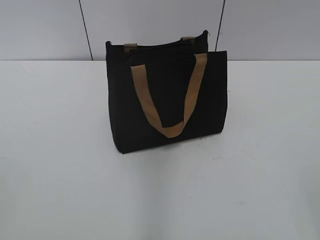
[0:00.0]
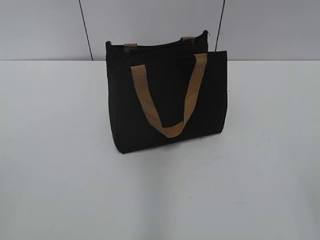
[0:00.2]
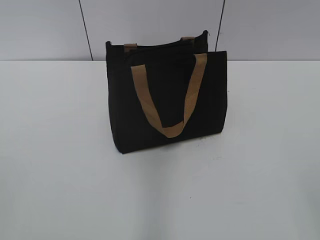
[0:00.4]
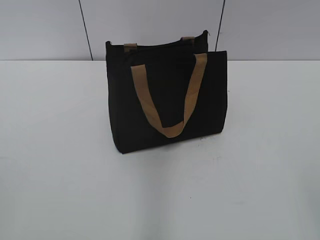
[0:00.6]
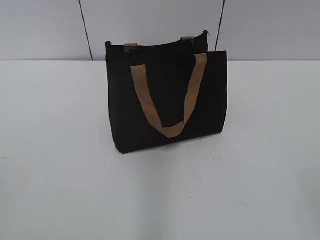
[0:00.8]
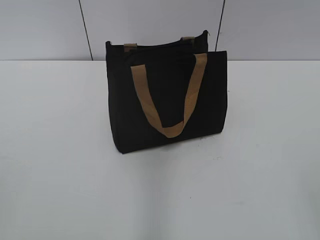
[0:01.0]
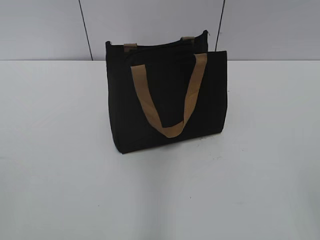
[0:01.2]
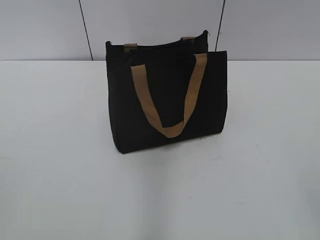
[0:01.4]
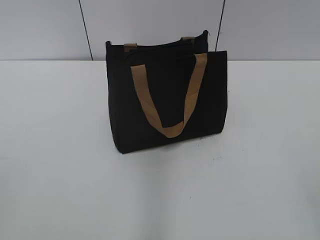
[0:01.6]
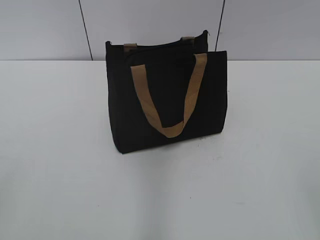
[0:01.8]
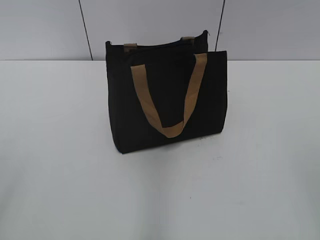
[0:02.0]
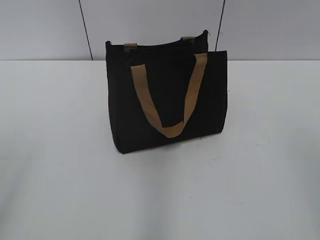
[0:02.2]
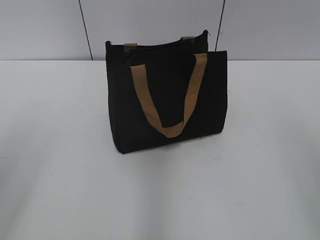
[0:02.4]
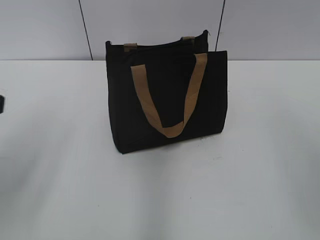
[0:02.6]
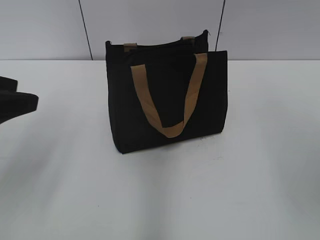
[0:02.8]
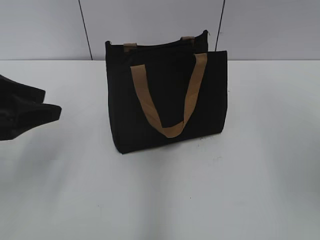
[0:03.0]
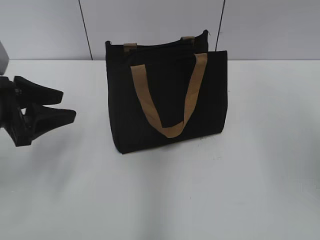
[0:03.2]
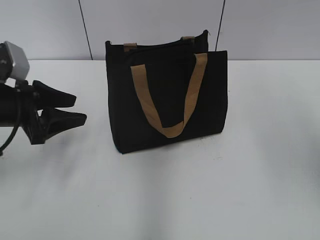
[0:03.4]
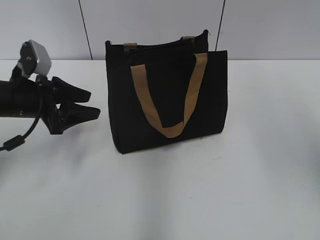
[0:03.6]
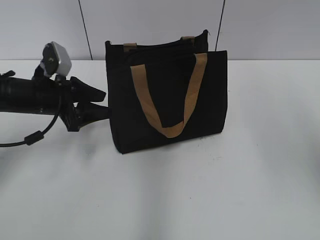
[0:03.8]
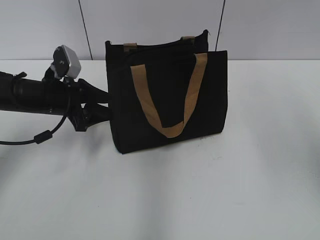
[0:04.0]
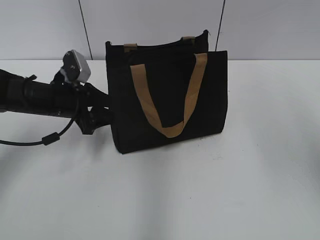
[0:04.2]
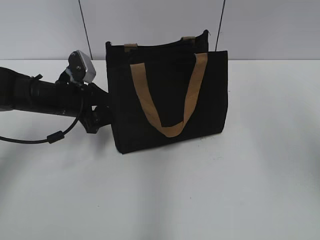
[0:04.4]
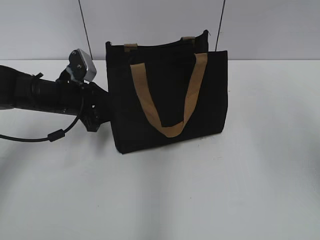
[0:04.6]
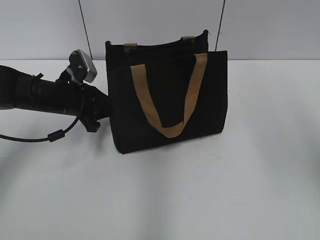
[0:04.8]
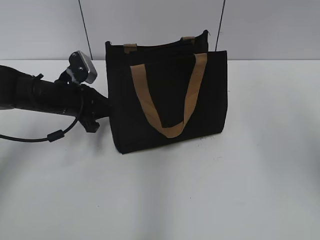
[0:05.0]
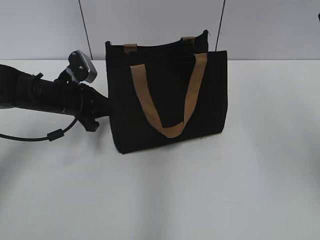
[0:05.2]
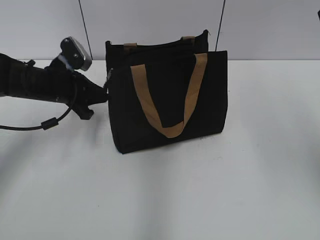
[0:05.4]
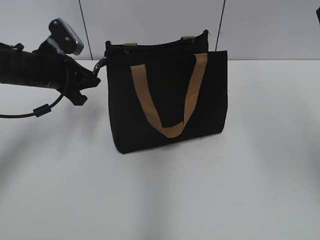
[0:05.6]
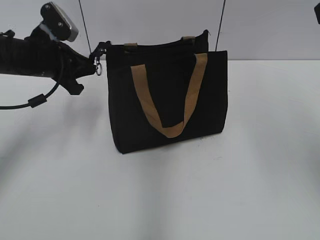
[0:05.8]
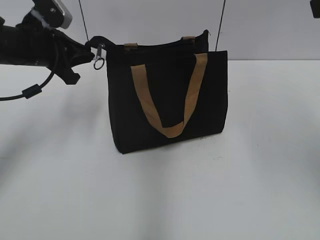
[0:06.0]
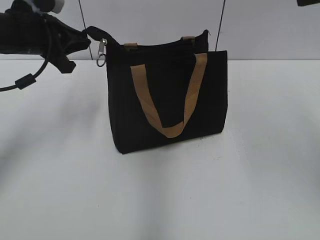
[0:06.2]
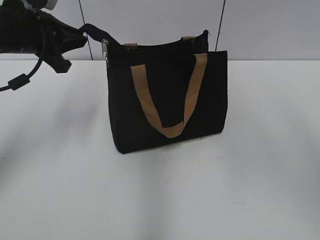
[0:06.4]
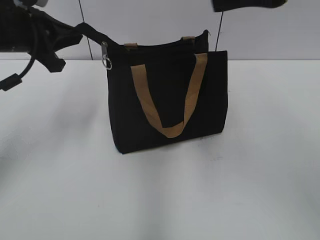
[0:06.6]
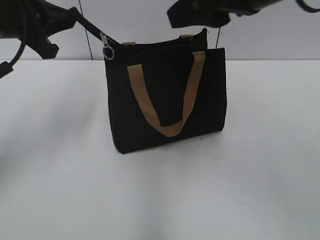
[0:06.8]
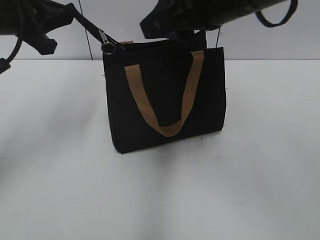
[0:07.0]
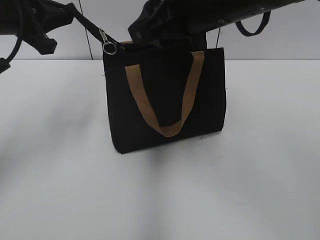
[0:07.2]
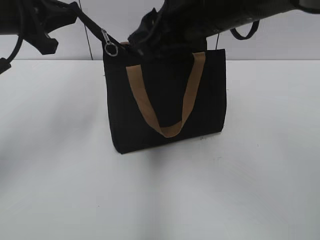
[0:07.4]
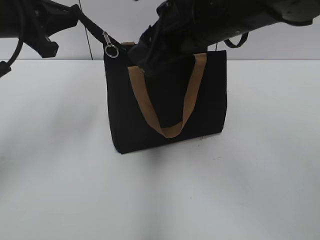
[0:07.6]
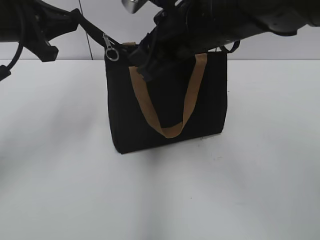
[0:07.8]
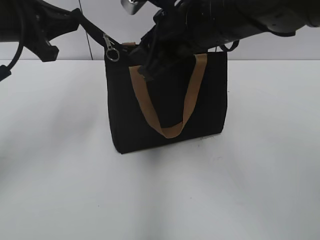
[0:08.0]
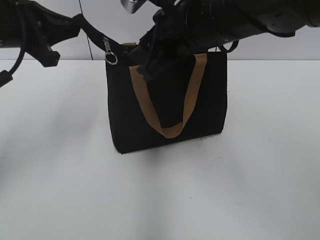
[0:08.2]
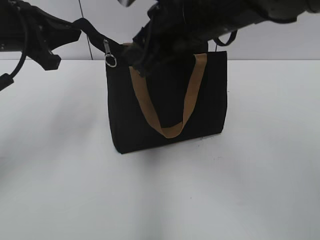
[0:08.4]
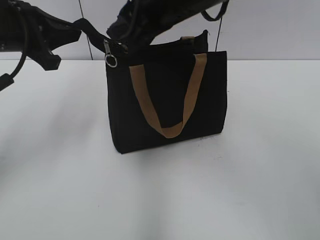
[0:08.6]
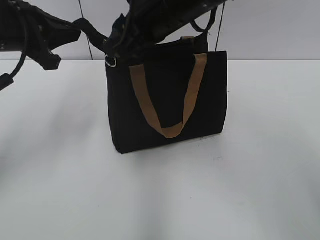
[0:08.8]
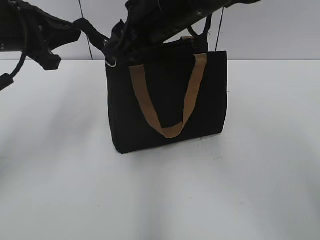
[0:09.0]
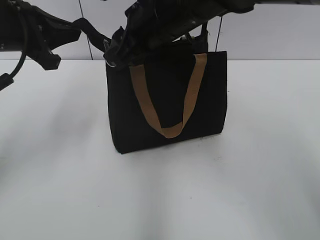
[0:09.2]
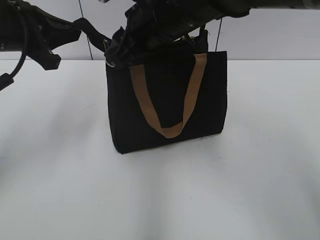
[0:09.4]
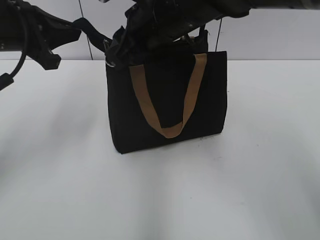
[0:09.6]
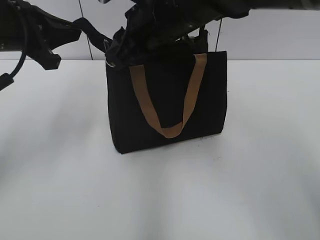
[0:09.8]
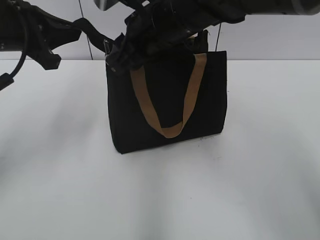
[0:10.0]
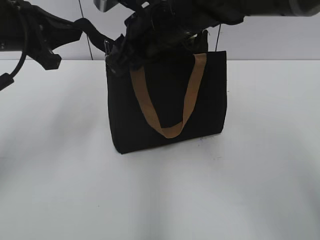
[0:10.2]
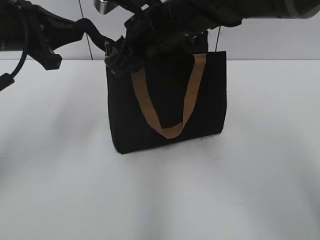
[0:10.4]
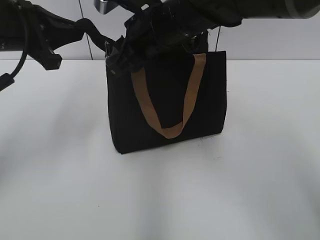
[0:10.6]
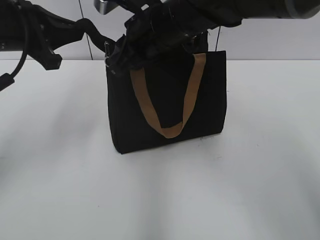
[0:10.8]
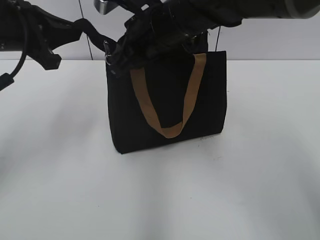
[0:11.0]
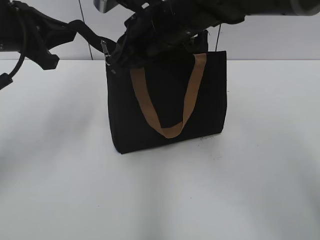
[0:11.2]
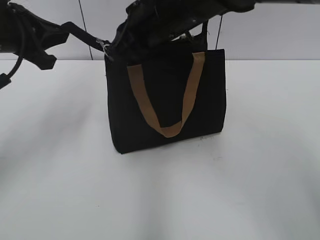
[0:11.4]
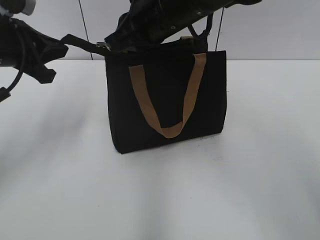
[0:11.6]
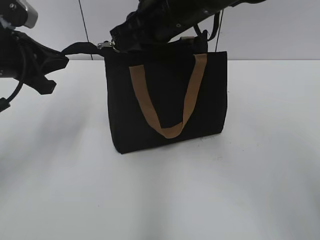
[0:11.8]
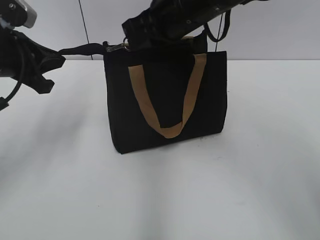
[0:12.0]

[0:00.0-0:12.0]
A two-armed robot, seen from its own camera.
1.6 to 3.0 s: The left gripper shifts approximately 20 cm forward, and opens its fingers.
3.0 to 4.4 s: The left gripper travels forward, downward and to the right by about 20 cm. The right gripper is displaced forward by some 5 cm.
4.4 to 6.0 s: The left gripper goes some 10 cm upward, and closes up.
6.0 to 7.6 s: The left gripper goes roughly 10 cm upward and backward, while the right gripper is displaced to the left and downward by some 20 cm.
7.6 to 9.0 s: The right gripper changes place by some 5 cm.
9.0 to 10.4 s: The grippers stay close to where they were, moving slightly.
10.4 to 12.0 s: The right gripper closes.

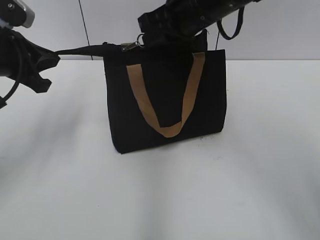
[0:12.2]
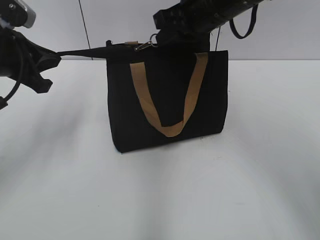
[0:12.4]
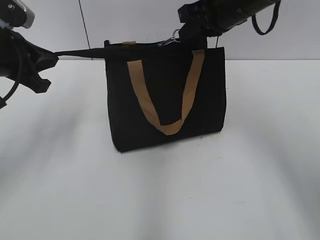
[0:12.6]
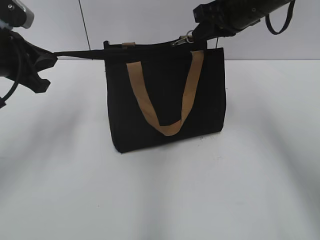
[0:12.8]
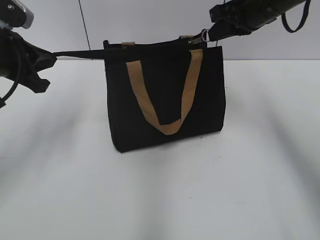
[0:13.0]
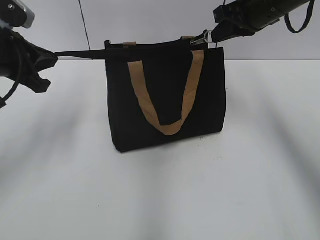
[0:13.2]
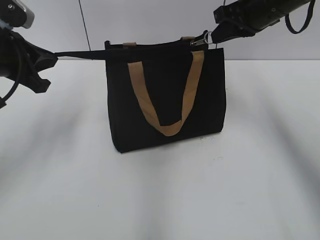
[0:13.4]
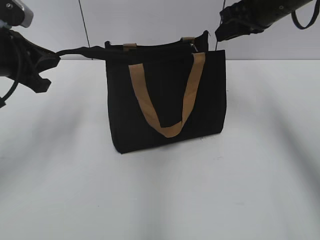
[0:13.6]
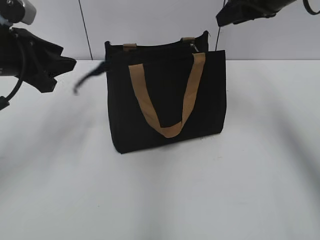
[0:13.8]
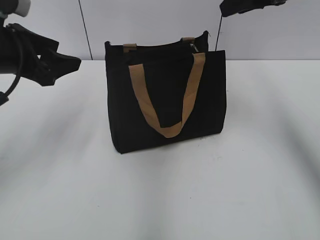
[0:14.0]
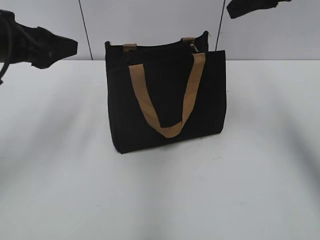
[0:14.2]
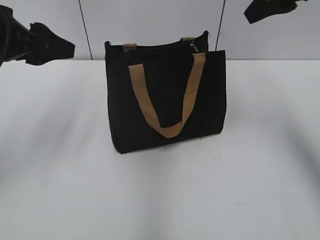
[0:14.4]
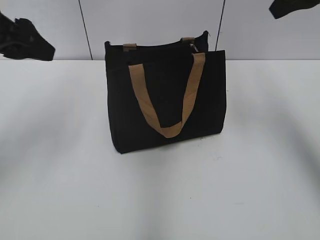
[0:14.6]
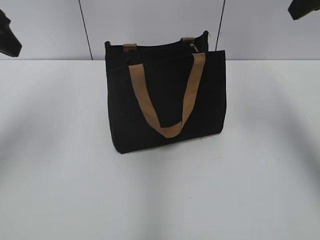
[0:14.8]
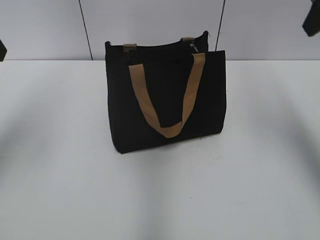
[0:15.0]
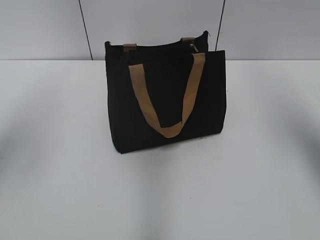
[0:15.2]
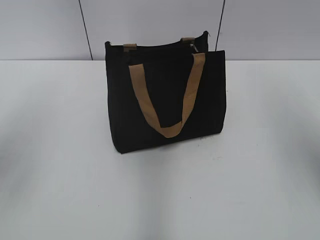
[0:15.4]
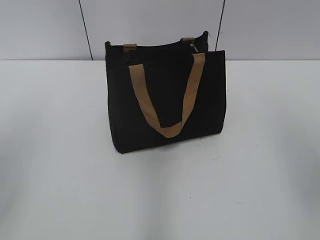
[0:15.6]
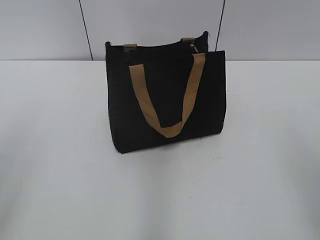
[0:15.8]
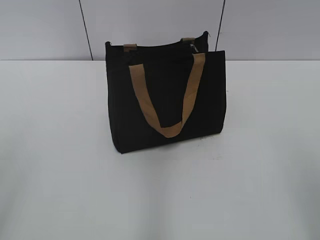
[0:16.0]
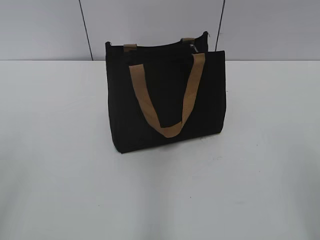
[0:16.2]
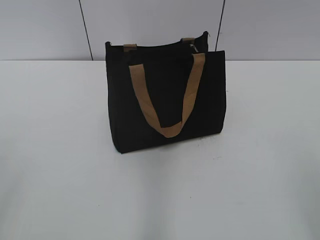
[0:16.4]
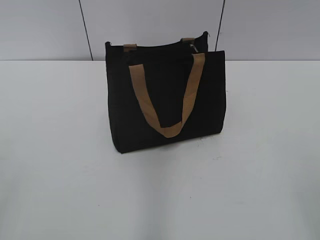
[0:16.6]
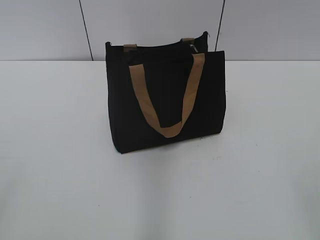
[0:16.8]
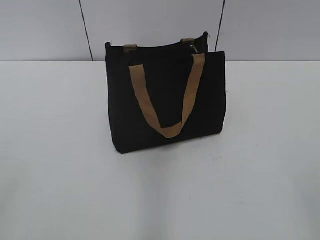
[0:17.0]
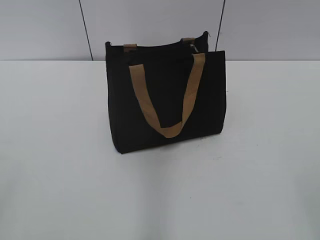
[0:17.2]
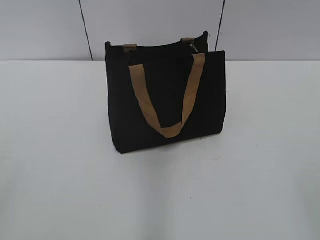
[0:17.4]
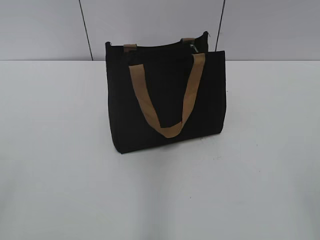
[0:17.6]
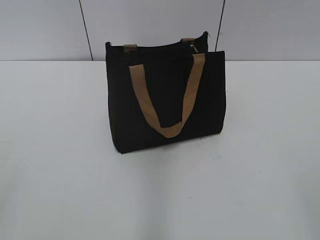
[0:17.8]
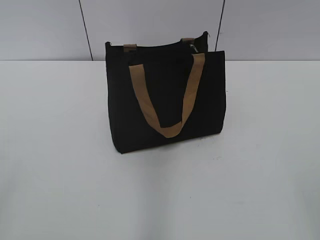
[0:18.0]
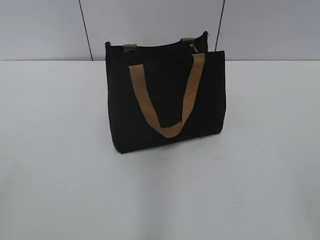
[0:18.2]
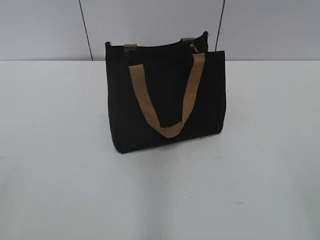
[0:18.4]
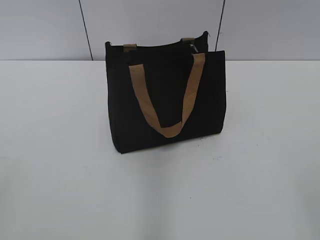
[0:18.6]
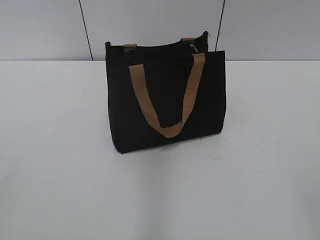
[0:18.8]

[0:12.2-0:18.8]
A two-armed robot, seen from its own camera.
12.2 to 13.8 s: The left gripper opens, while the right gripper is displaced to the right by roughly 15 cm, and opens up.
13.8 to 15.4 s: The left gripper moves upward and backward, roughly 10 cm, and opens. The right gripper goes roughly 20 cm backward, to the right and upward.

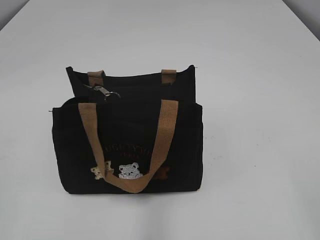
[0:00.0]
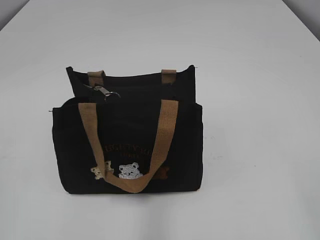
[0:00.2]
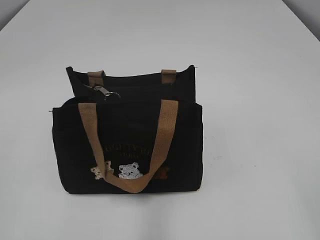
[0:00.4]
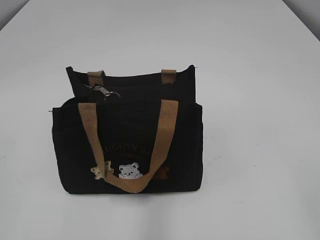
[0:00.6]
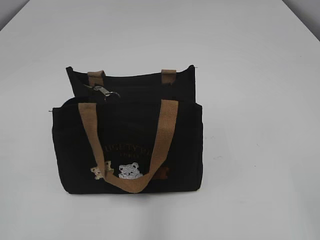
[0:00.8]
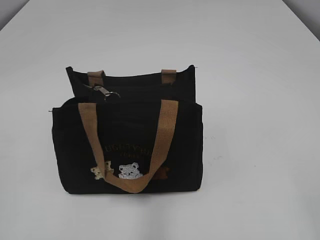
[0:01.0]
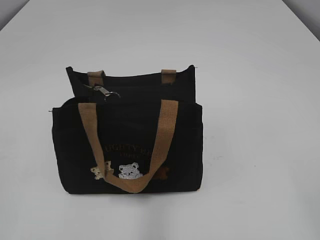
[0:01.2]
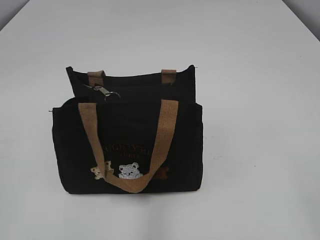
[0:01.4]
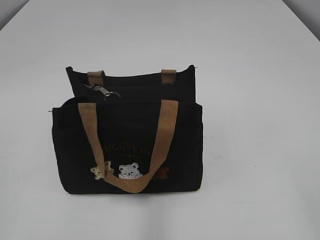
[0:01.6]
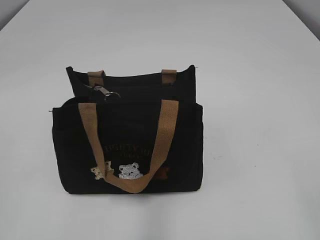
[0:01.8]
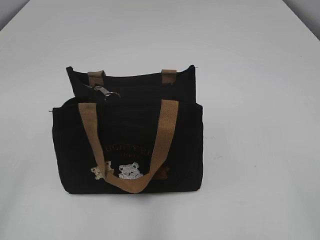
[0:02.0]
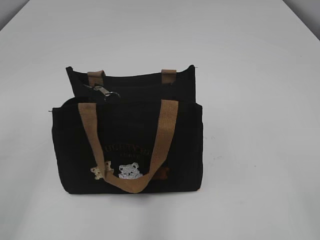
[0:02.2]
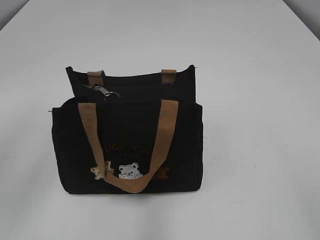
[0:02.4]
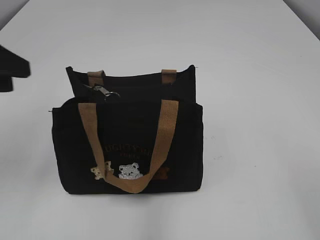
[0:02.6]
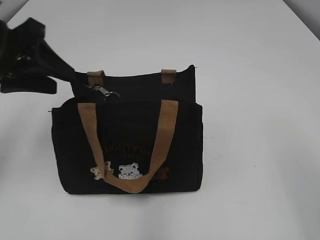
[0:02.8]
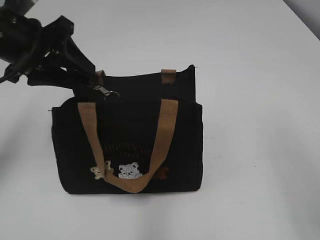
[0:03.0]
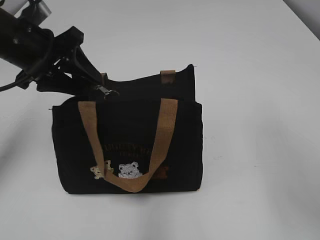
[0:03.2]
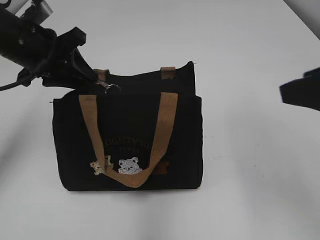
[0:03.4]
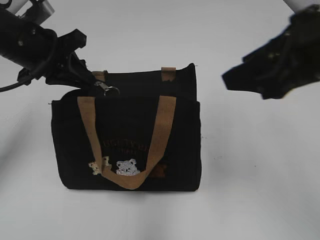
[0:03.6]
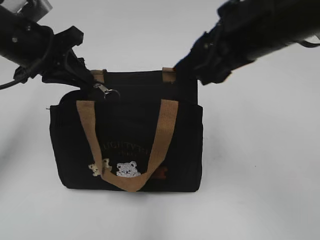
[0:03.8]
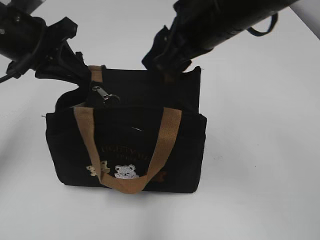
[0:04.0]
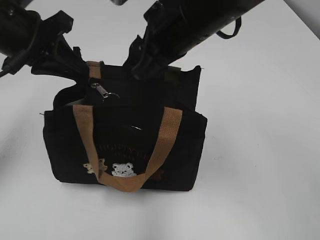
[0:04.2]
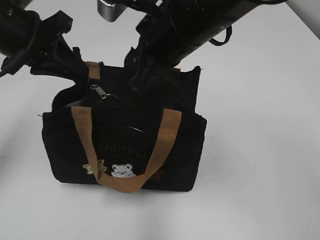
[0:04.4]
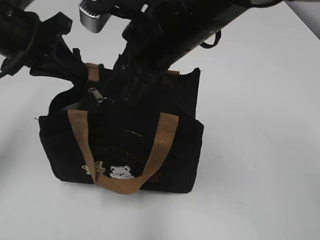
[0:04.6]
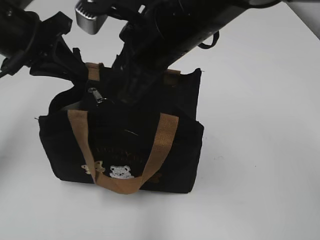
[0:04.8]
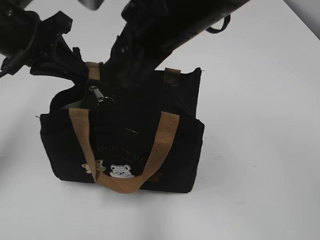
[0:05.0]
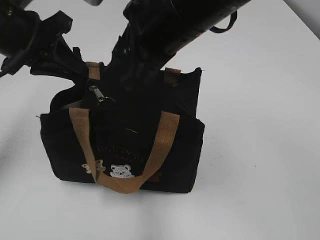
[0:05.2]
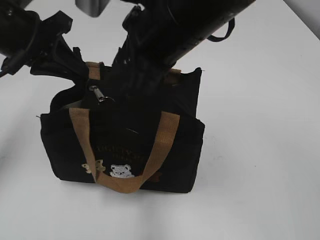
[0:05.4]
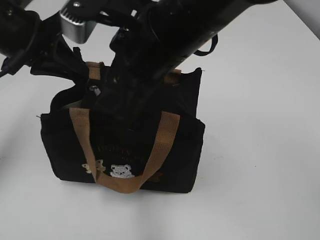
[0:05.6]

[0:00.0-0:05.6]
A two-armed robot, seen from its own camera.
1.4 to 2.8 s: The left gripper is displaced forward by some 25 cm.
2.8 to 4.2 s: The left gripper closes its fingers; the right gripper travels forward and to the left by approximately 35 cm.
4.2 to 5.6 s: The right gripper ends up some 5 cm from where it was.
